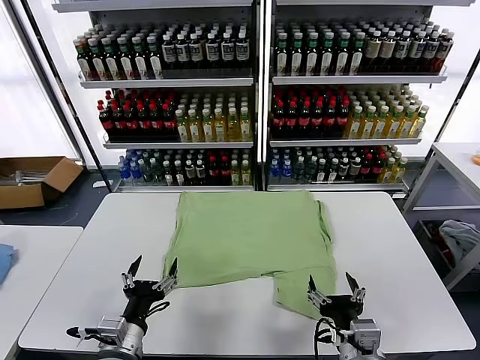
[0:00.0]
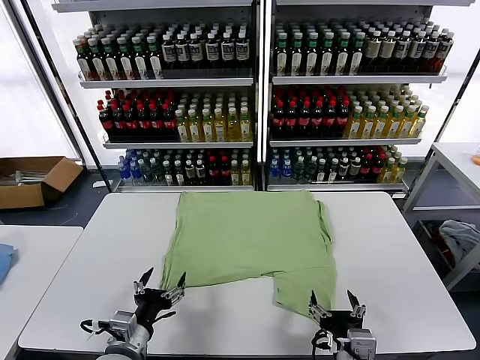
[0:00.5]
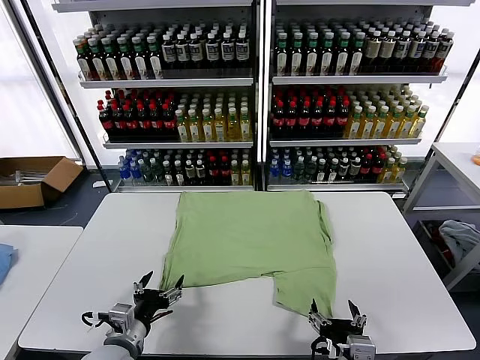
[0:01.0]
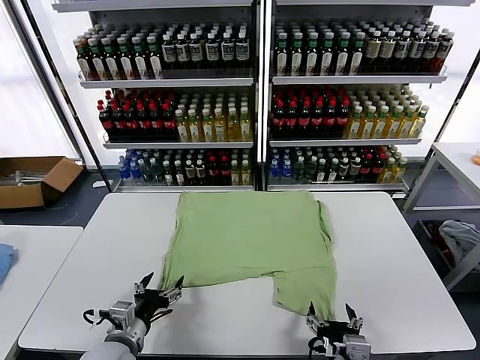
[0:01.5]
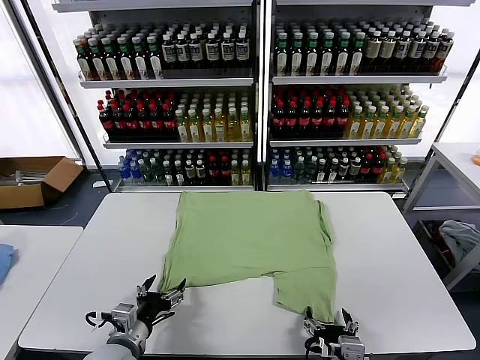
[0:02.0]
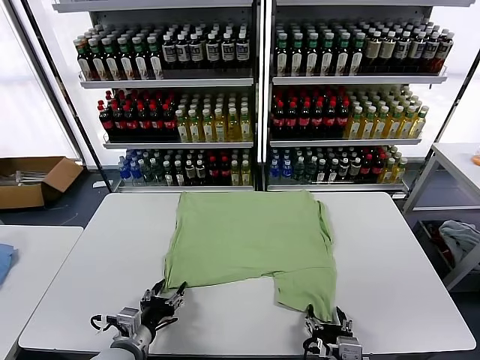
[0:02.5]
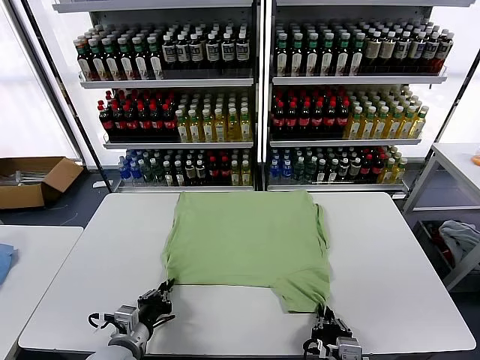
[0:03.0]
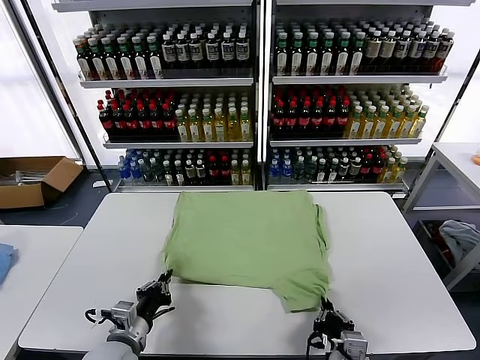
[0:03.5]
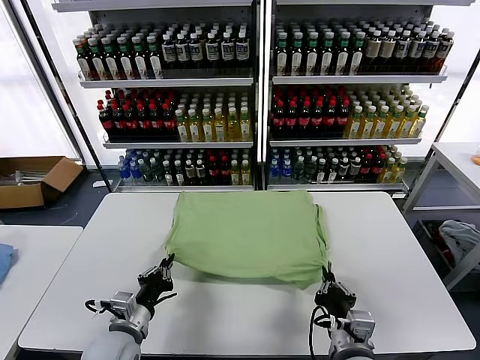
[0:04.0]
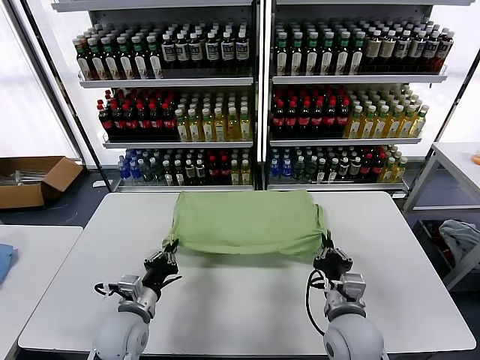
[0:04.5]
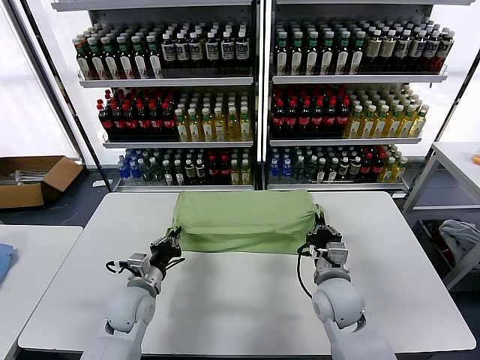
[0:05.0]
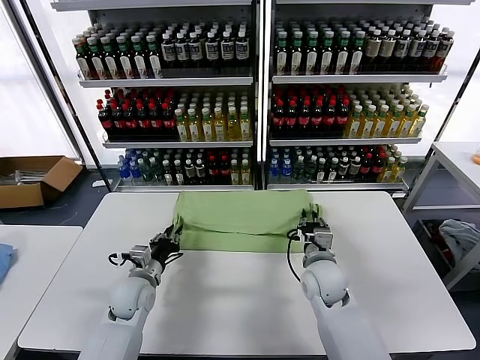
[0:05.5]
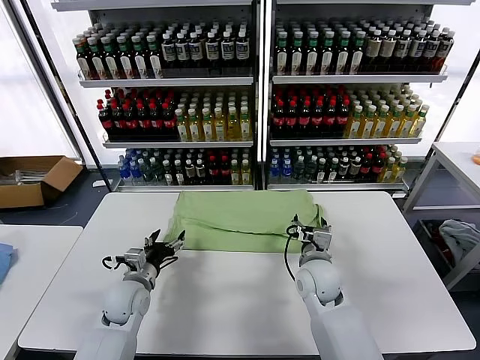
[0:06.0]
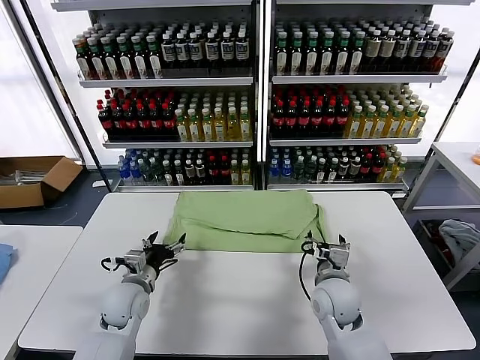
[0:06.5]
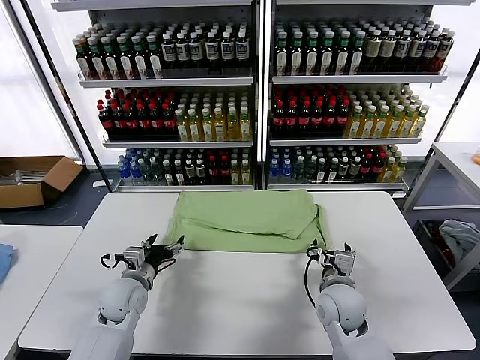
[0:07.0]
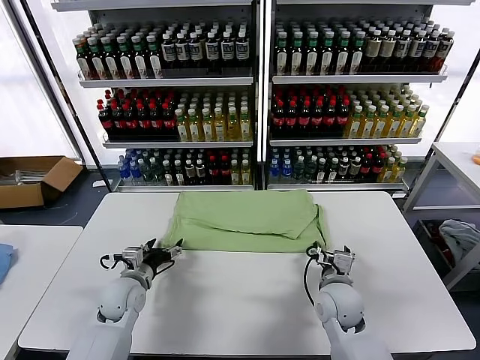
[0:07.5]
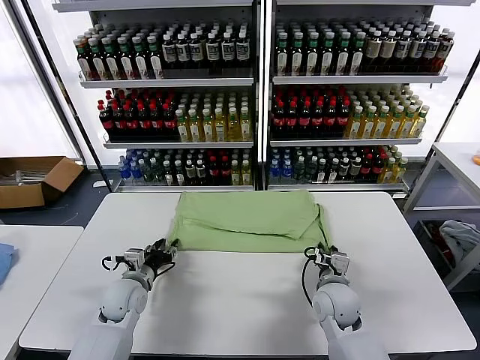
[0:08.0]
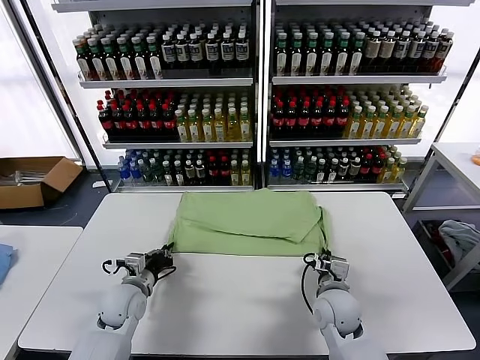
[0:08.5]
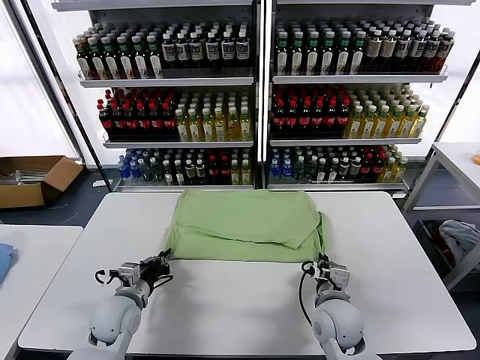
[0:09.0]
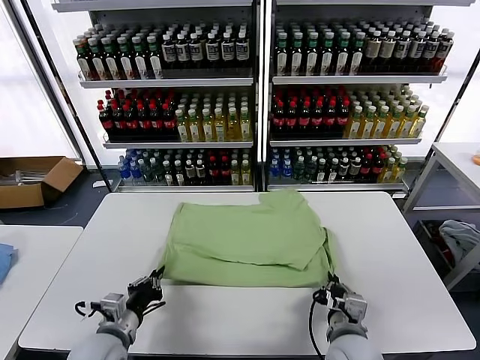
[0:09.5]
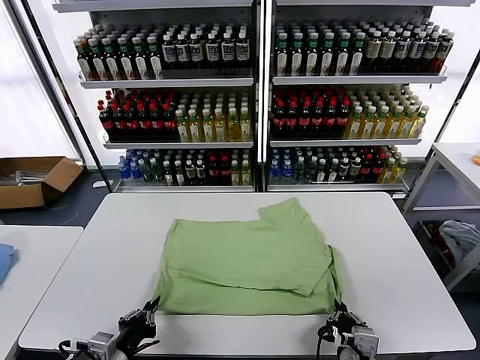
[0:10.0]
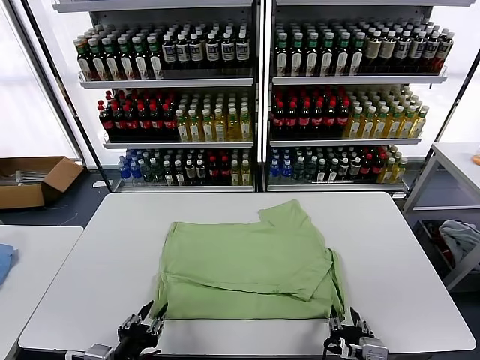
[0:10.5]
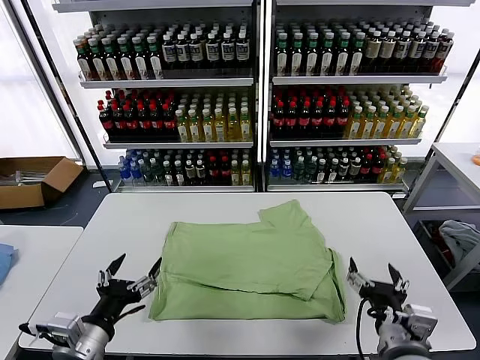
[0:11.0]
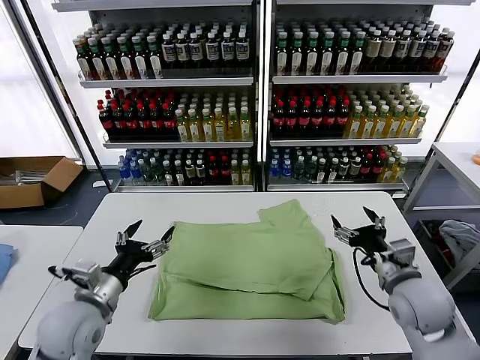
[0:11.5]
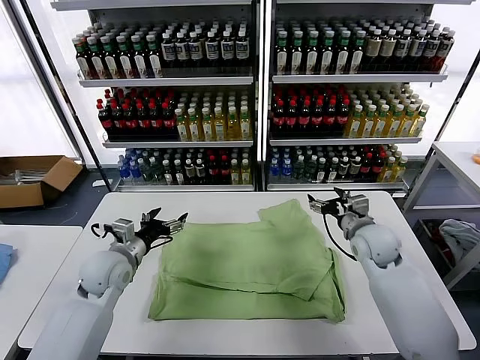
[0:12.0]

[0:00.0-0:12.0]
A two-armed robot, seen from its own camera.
Task of the whole recording: fold and organize the clothes.
Step, 0:00.0 to 0:03.0: use both grippers simultaneously to clamp the lower edge of the clothing fabric.
Step, 0:03.5 to 0:06.0: use both grippers to drag the lower edge of the fabric forward and fold it over the upper edge.
Step, 0:06.5 to 0:10.5: Drag the clothes downward with both gripper.
0:02.0 to 0:04.0: The left gripper closes up; the right gripper heads forward, covering roughly 5 cm, and closes.
0:04.0 to 0:06.0: The left gripper is displaced forward by roughly 10 cm, and opens up. The right gripper shifts about 20 cm forward, and opens up.
0:06.0 to 0:08.0: The right gripper ends up some 5 cm from where it was, and closes its fingers; the left gripper closes up.
0:08.0 to 0:10.0: Both grippers move backward, some 20 cm. The left gripper closes.
0:10.0 to 0:12.0: The grippers both shift forward by some 25 cm. The right gripper opens, while the left gripper opens up.

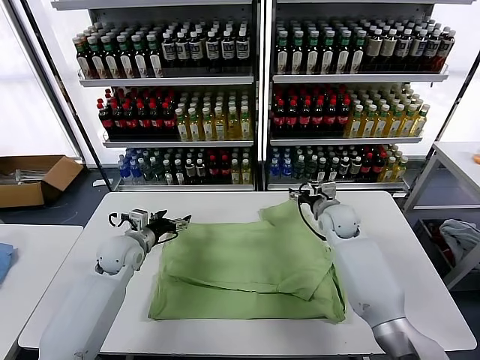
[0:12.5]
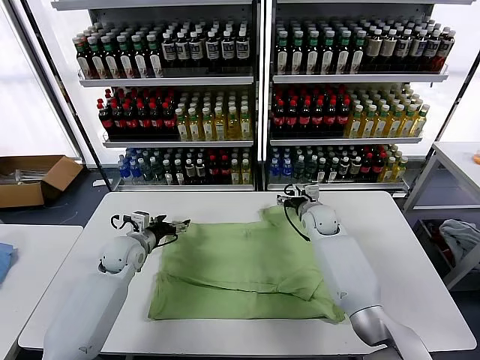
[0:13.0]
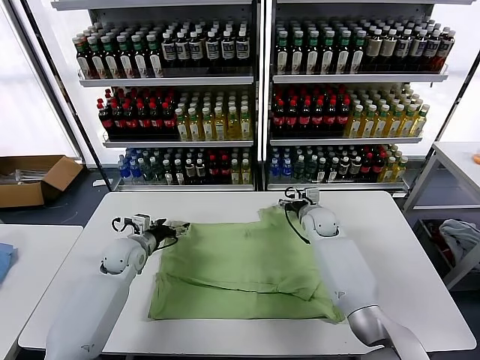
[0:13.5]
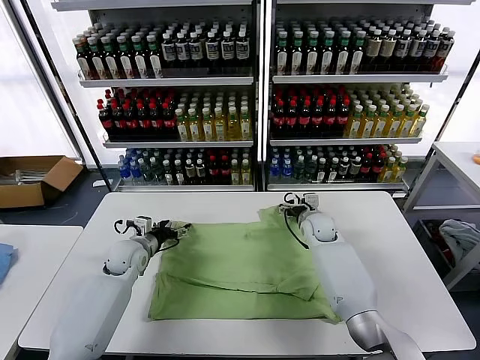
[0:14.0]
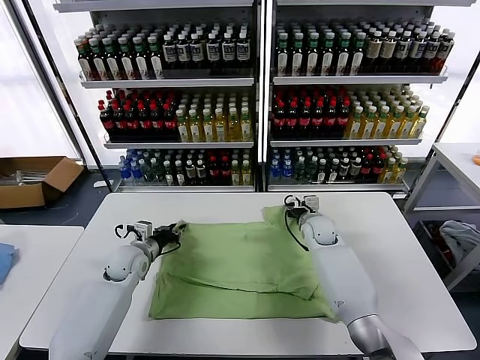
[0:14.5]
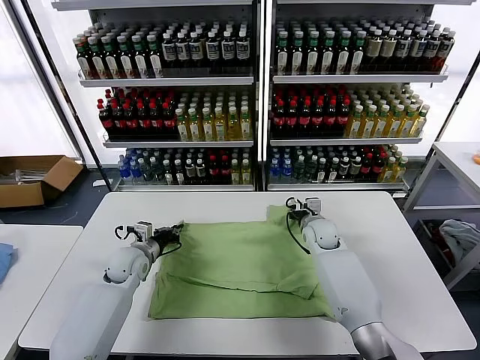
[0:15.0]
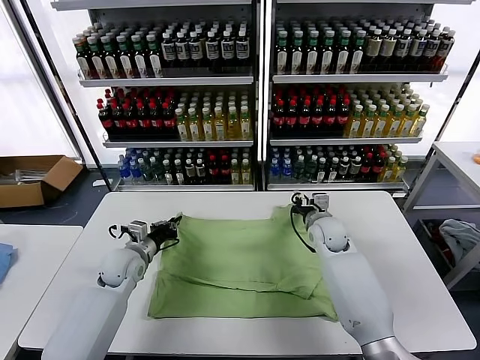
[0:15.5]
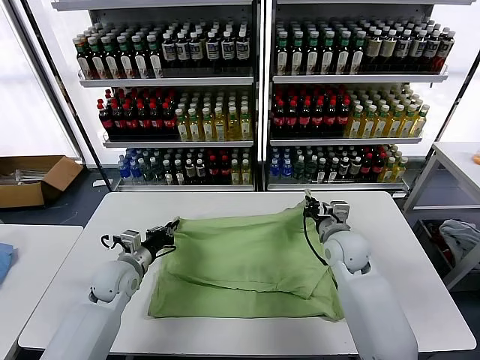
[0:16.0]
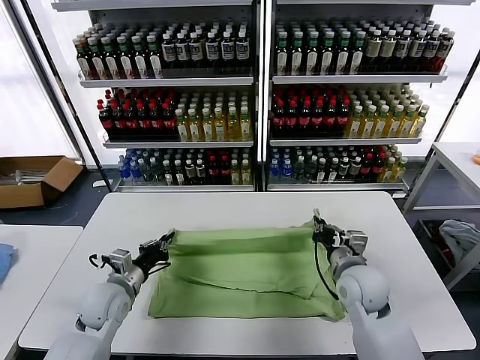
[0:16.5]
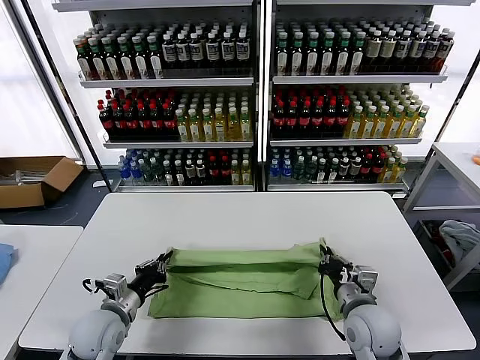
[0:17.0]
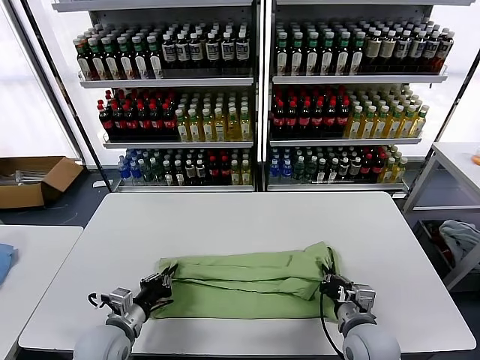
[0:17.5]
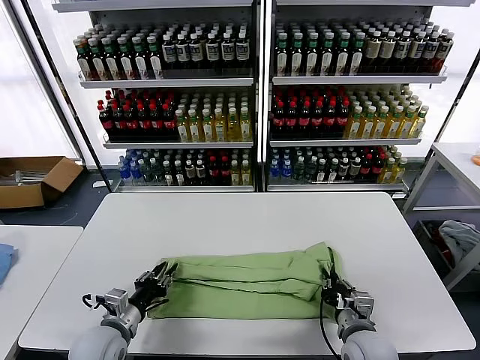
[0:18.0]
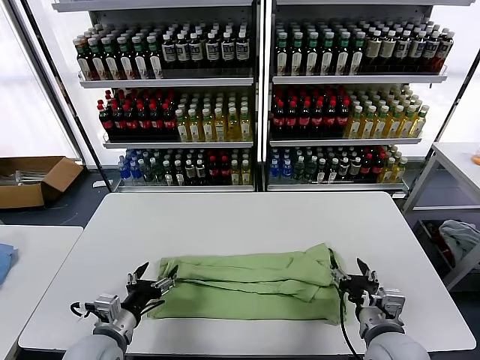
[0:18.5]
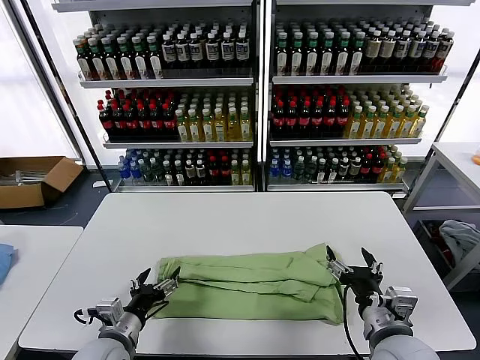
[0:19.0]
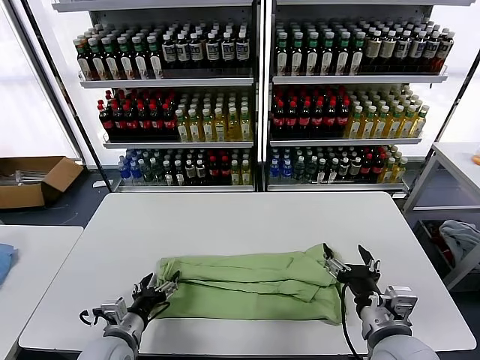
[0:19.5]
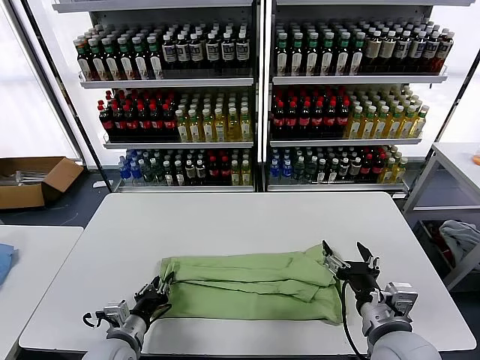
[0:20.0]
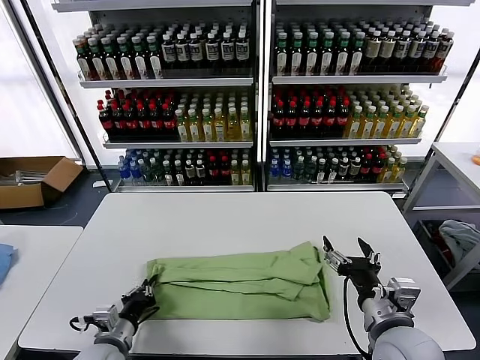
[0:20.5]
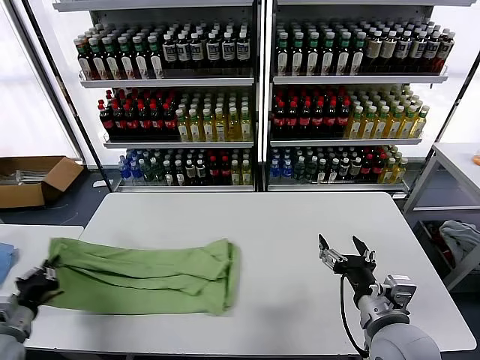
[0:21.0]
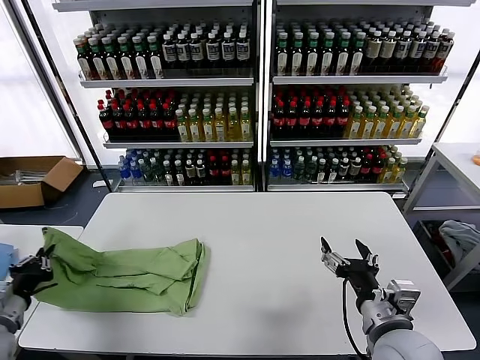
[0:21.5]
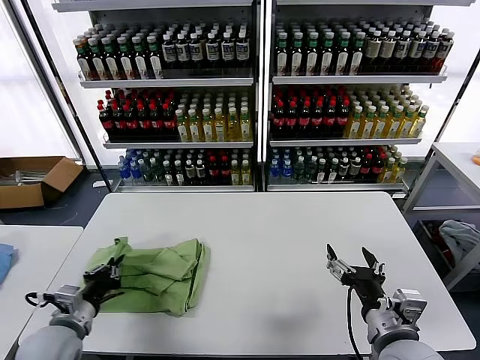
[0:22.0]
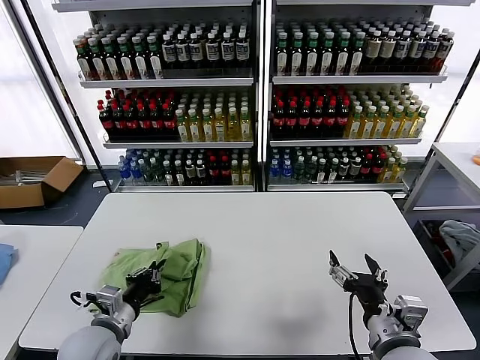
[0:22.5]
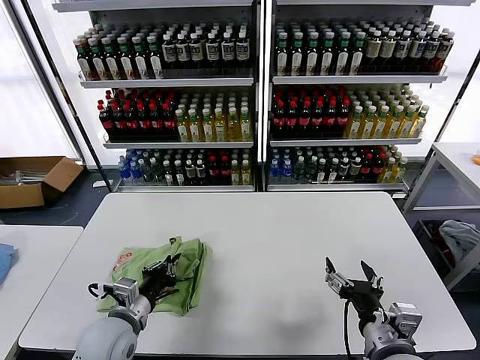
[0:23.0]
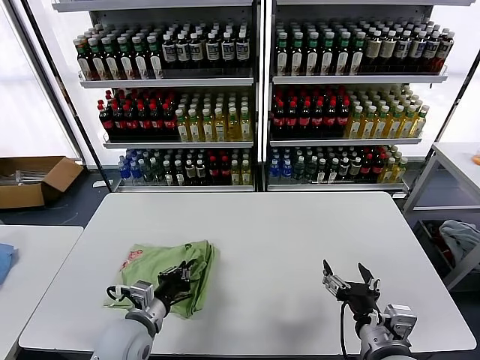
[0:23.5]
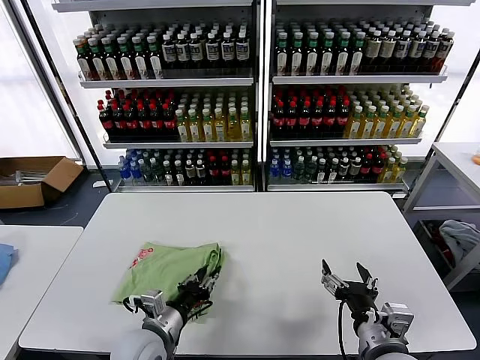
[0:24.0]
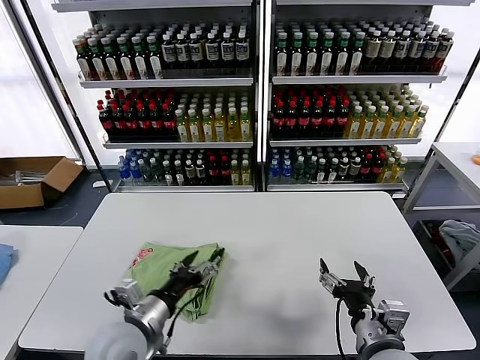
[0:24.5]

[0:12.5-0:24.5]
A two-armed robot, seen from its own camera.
Task of the whole recording: fold and organize the clothes.
Step, 0:12.5 to 0:15.0: use both grippers simultaneously to clamp the upper edge of the clothing fabric.
Step, 0:15.5 to 0:18.0: use both grippers to drag the upper edge of the fabric backward and fold it over the lower edge.
Step, 0:18.5 to 0:20.0: use the left gripper to clamp the left edge of the fabric.
Step, 0:20.5 to 0:24.0: use the left gripper to drag the left edge of the fabric to the left and folds it over the right edge.
0:12.5 to 0:14.5: The right gripper goes some 5 cm downward, and closes; the left gripper closes up.
0:14.5 to 0:16.5: The right gripper shifts roughly 20 cm backward, and closes its fingers, while the left gripper moves backward, about 10 cm.
0:16.5 to 0:18.5: The grippers both shift backward by approximately 10 cm. The right gripper opens up. Meanwhile the left gripper opens its fingers.
0:18.5 to 0:20.5: The right gripper changes place by about 5 cm; the left gripper closes its fingers.
0:20.5 to 0:22.5: The left gripper travels upward by approximately 5 cm, and goes to the left and returns, about 20 cm each way.
0:22.5 to 0:24.5: The left gripper goes about 10 cm to the right, and opens up.

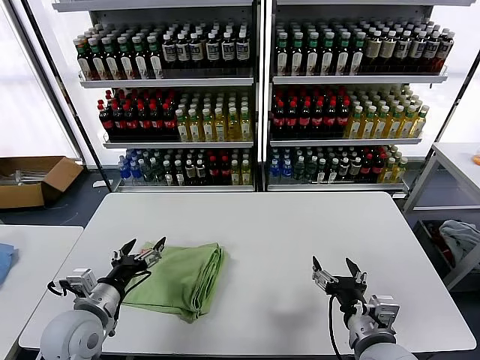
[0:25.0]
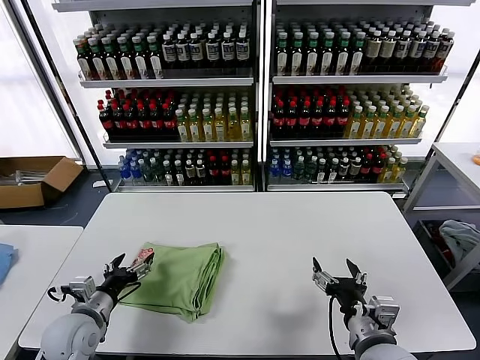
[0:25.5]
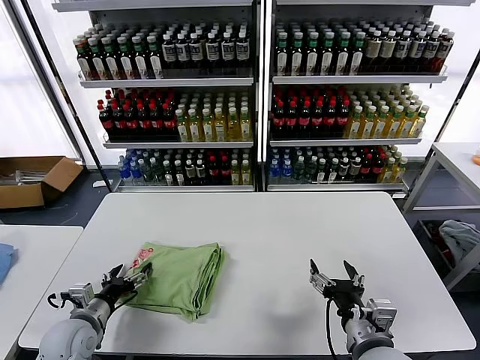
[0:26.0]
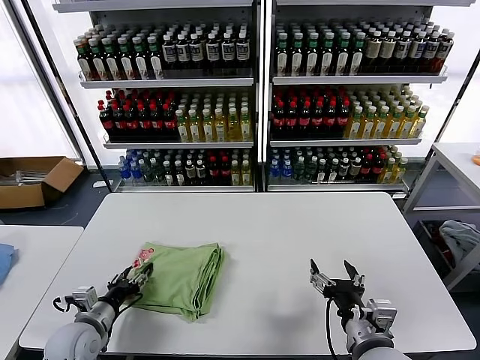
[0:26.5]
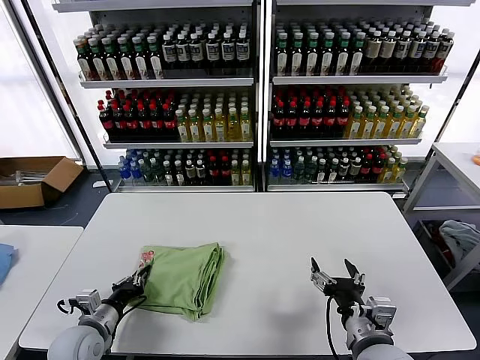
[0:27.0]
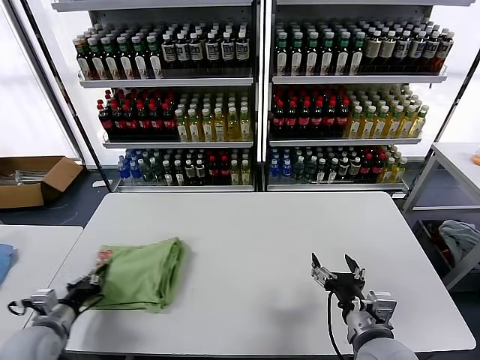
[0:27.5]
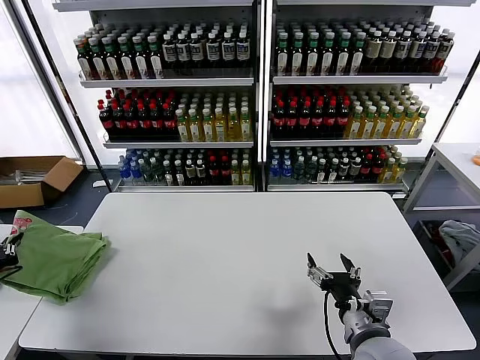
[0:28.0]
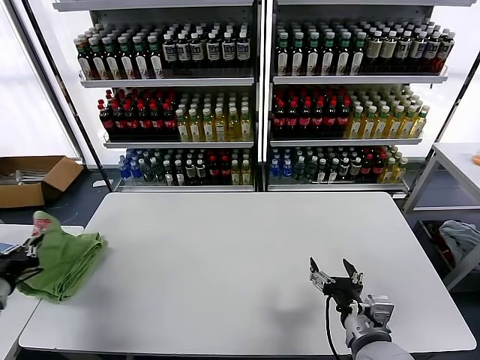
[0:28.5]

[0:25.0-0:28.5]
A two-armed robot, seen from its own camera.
Task of the whole recording: fold and organize the clothes.
0:25.0 to 0:27.0: The left gripper travels downward by roughly 10 cm, and closes up.
0:27.0 to 0:28.5: The left gripper is displaced to the left and upward by some 20 cm.
